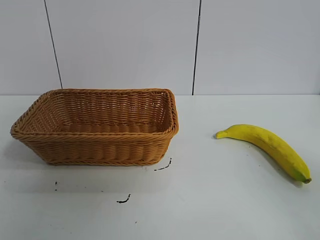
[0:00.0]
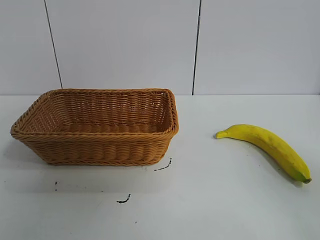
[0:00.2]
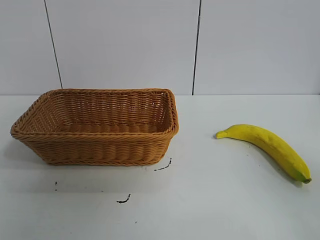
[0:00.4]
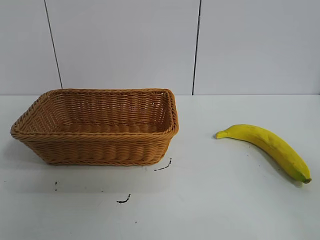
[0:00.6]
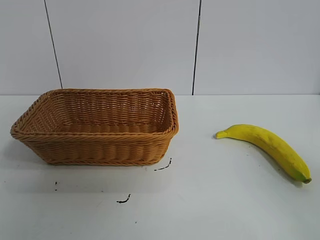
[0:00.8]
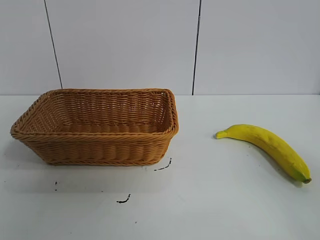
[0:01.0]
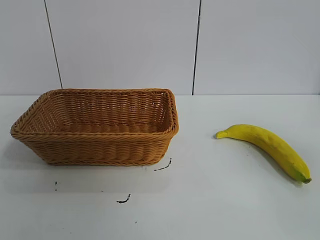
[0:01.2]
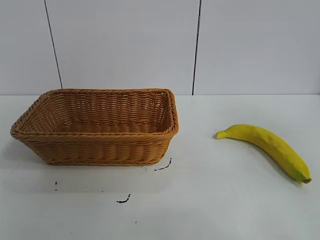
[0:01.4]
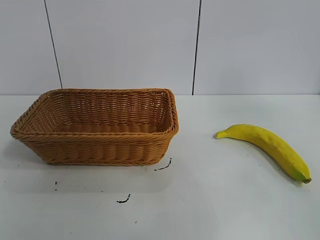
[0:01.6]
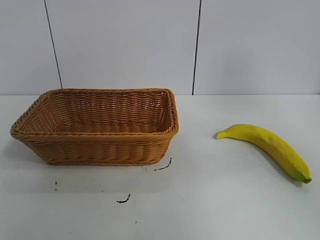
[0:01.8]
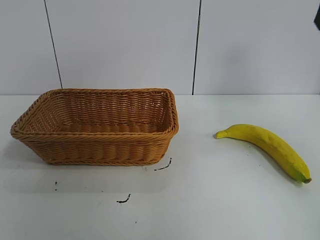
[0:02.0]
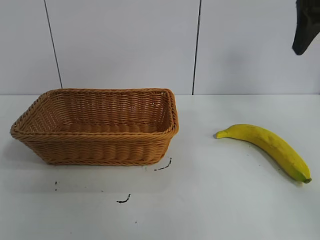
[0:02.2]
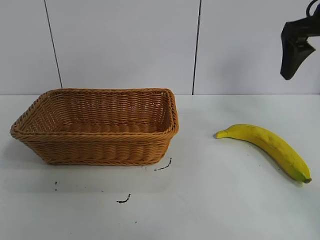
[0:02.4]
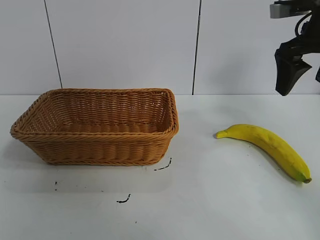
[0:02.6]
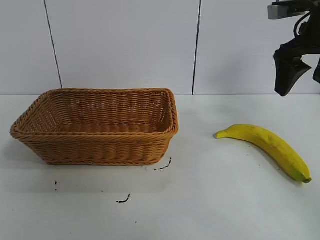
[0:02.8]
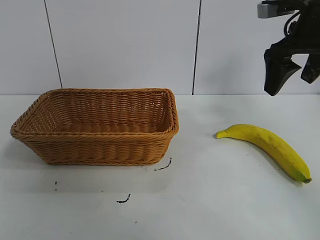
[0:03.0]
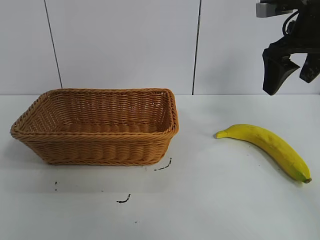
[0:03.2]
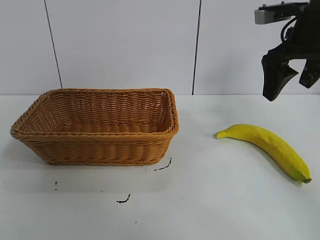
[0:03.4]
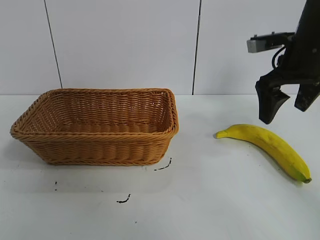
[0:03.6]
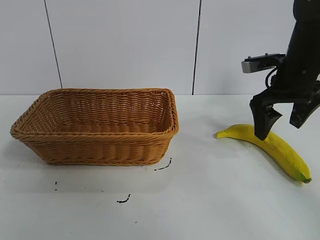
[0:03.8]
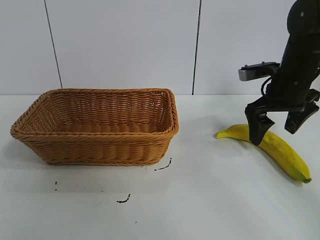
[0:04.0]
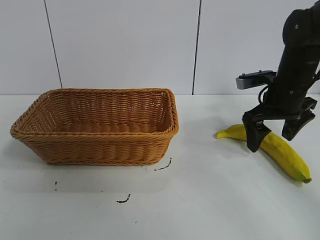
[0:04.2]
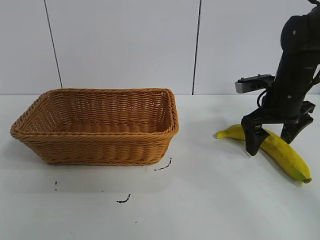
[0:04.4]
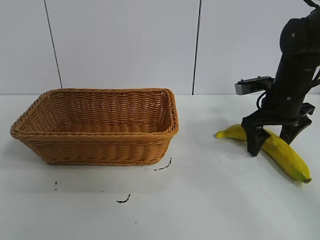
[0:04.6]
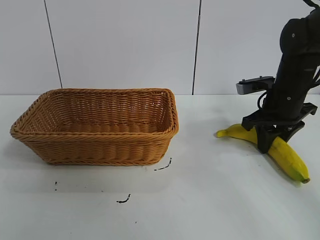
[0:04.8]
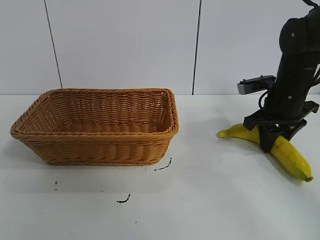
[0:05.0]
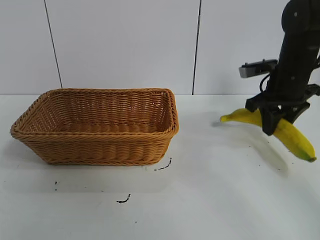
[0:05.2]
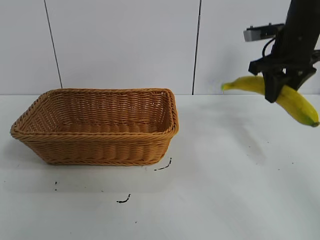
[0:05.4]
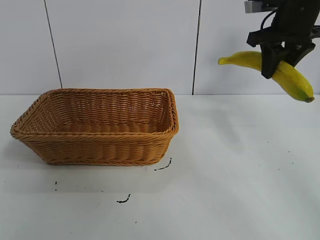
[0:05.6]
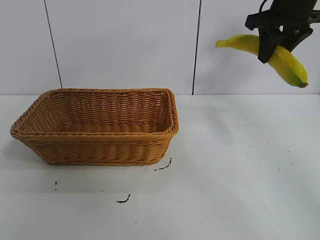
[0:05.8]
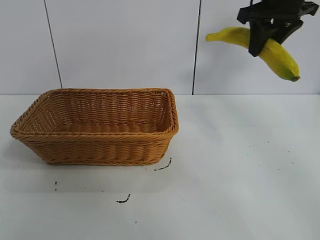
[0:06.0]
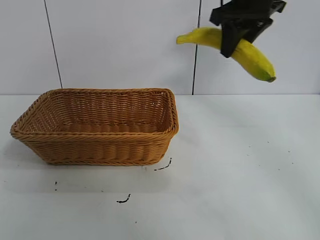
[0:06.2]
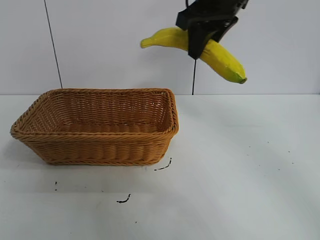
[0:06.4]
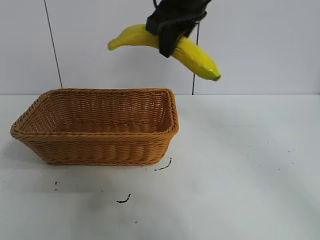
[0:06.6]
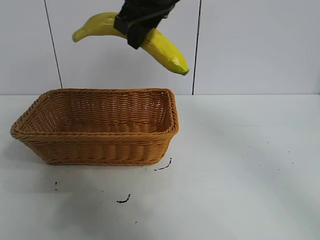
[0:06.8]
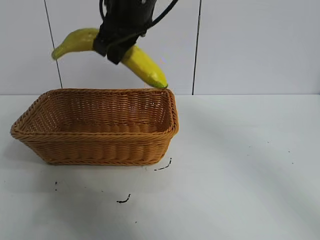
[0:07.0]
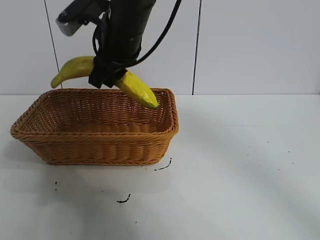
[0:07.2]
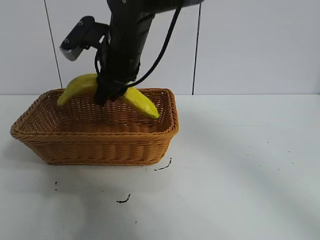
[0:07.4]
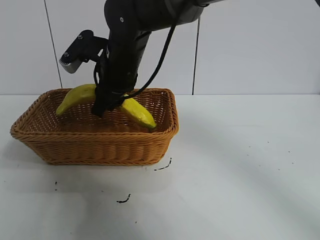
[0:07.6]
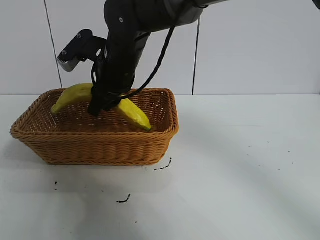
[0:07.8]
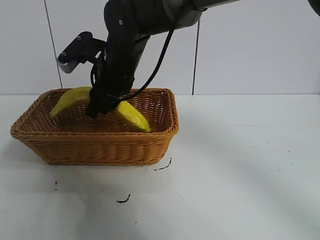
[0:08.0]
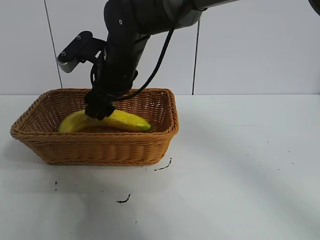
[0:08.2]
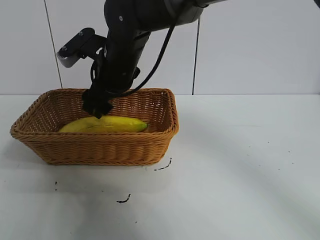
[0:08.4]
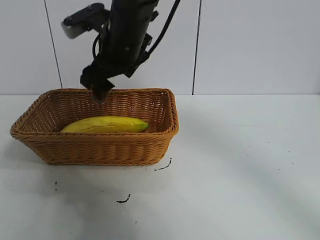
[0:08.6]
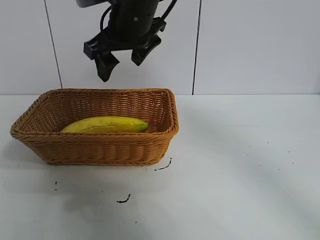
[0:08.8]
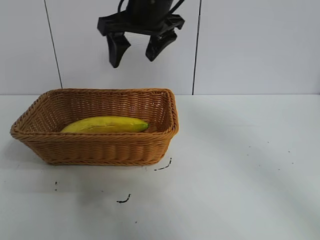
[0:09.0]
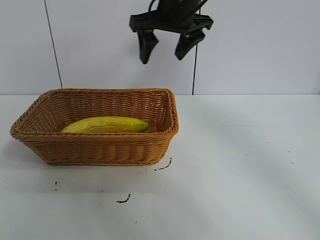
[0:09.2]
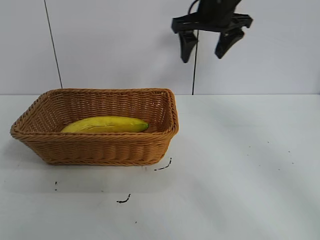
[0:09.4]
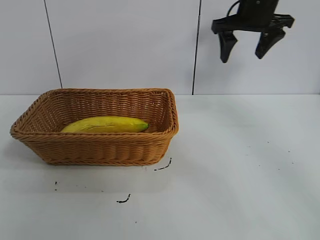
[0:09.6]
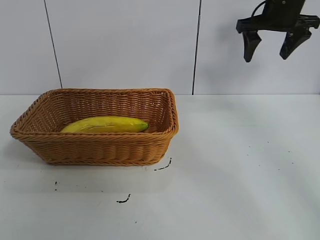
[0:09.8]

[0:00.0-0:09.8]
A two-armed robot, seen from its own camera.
Task of the whole recording: pick up the banana and put it into the basket.
Step, 0:00.8 to 0:04.8: Grasp the banana with right gripper.
Step, 0:05.0 to 0:08.2: Place the banana in the basket with right gripper.
